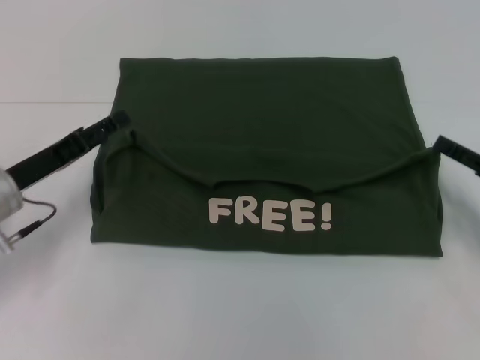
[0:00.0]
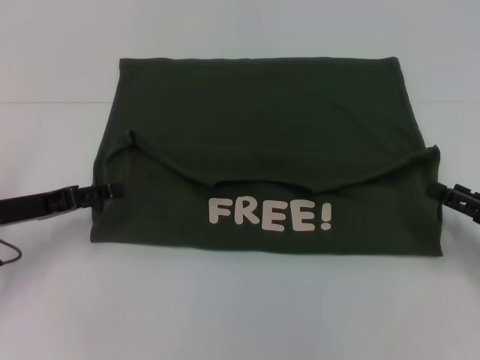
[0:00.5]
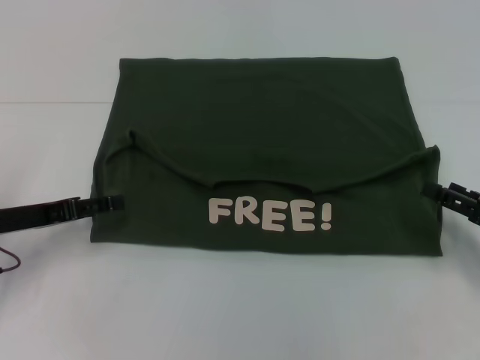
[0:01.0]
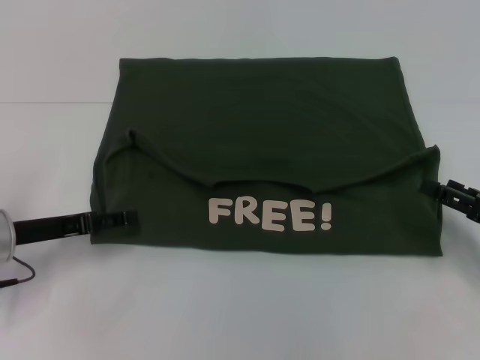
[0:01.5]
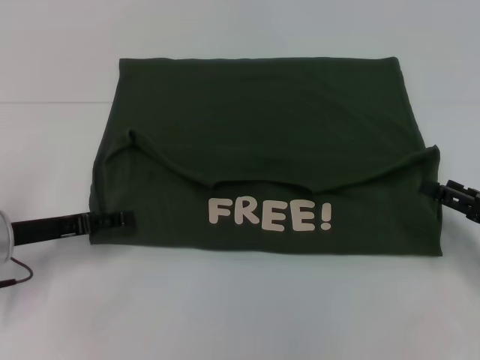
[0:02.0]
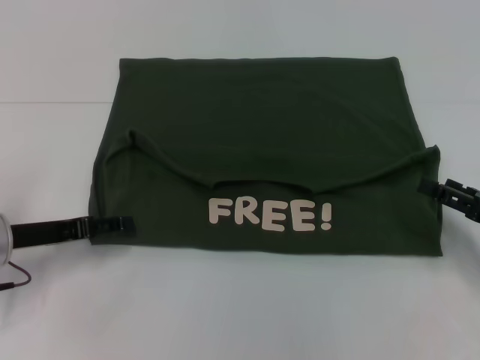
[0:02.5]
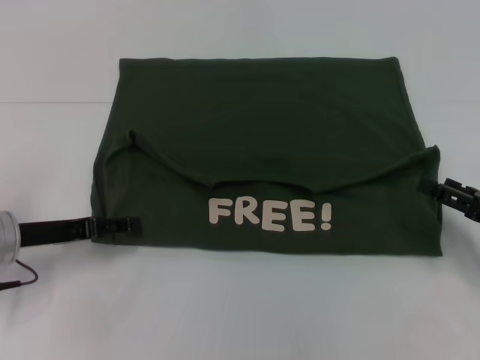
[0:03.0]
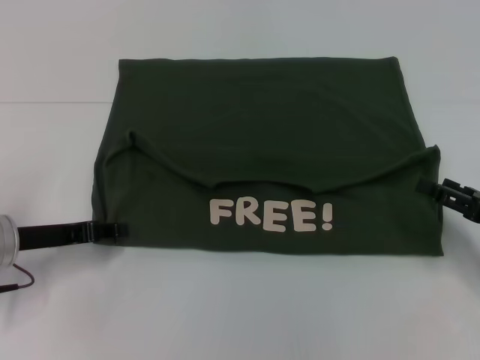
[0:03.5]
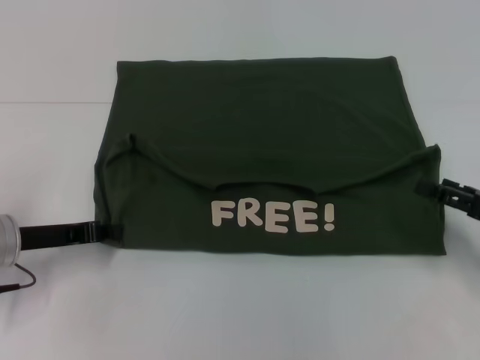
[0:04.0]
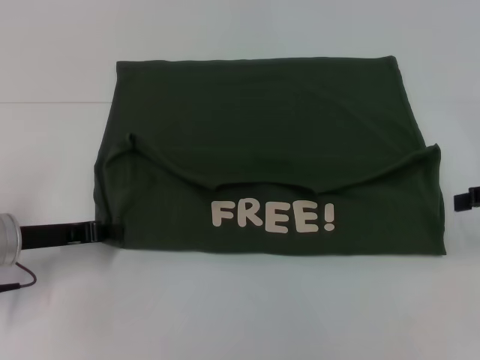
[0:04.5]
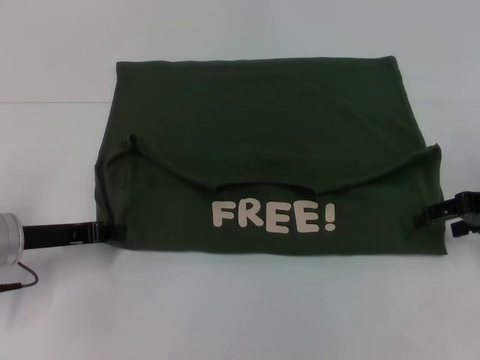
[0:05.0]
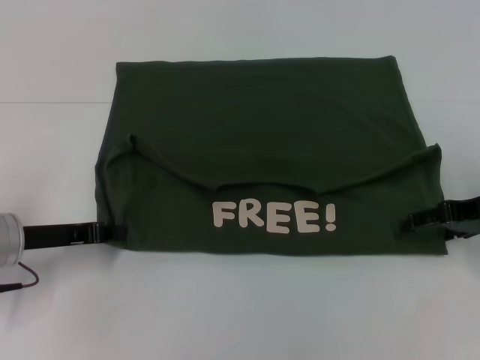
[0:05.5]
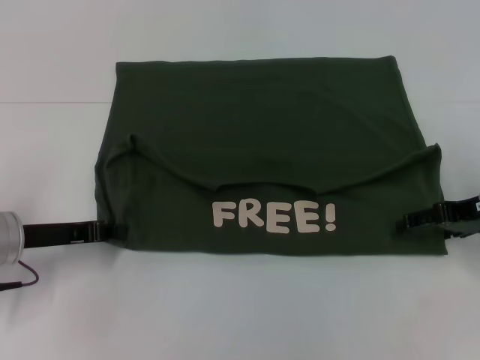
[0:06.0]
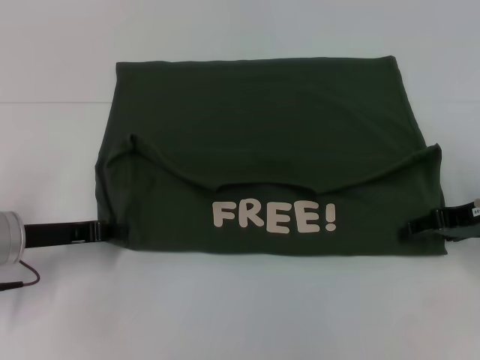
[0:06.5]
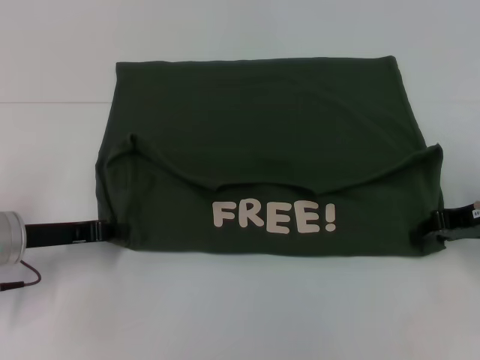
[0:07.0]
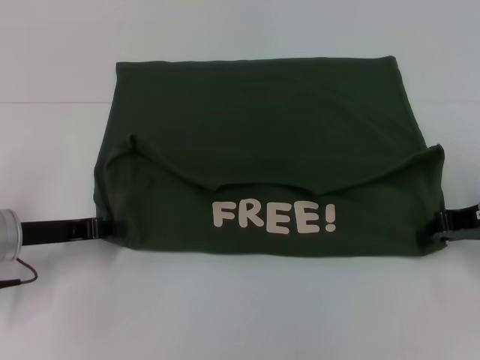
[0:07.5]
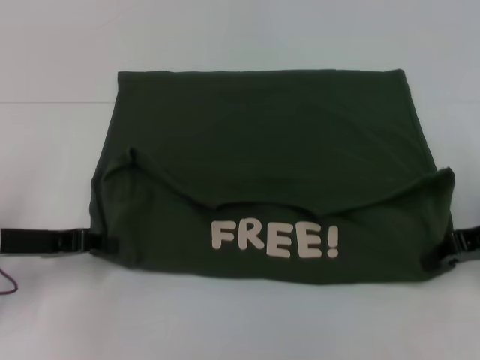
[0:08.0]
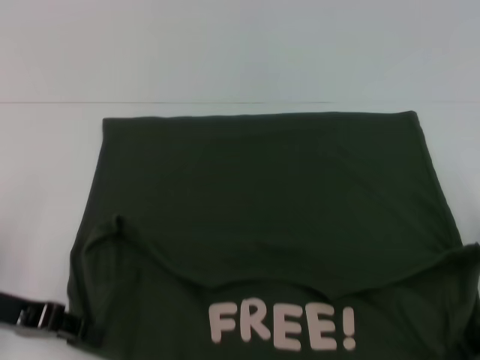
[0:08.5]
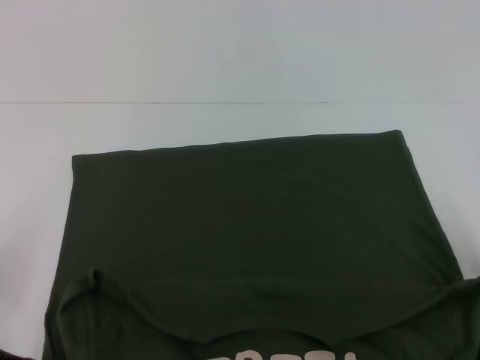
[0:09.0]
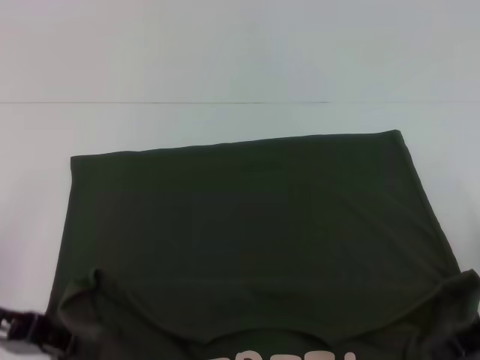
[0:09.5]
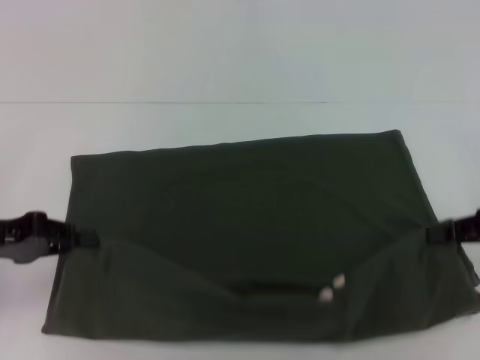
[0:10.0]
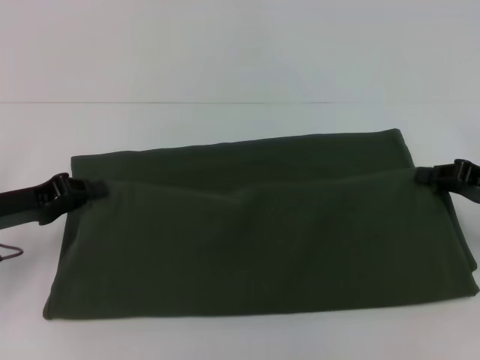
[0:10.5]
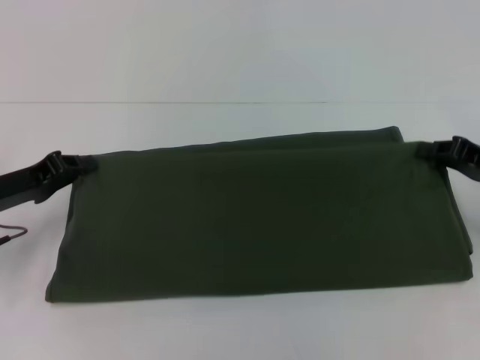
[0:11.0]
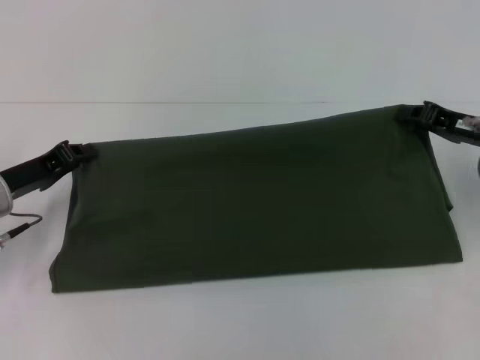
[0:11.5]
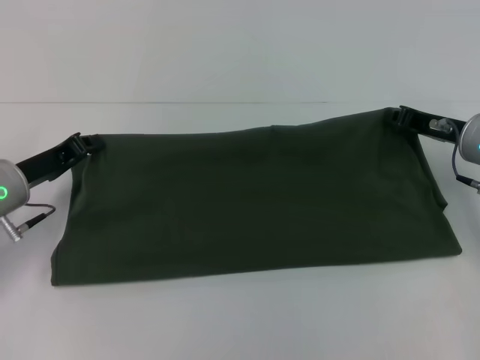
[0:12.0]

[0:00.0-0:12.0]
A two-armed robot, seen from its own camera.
Step, 0:00.5 to 0:09.0: Pull the clothes with your left hand.
Step, 0:00.5 to 0:09.0: Pull the clothes with your right hand.
0:02.0 to 0:04.0: The left gripper closes up.
0:04.0 to 0:06.0: The right gripper heads forward, covering approximately 10 cm.
0:06.0 to 0:08.0: The right gripper closes.
0:08.0 to 0:10.0: The left gripper moves roughly 5 cm.
0:10.0 to 0:12.0: The left gripper moves forward, to the right and downward, approximately 10 cm. Meanwhile the right gripper moves forward and to the left, roughly 15 cm.

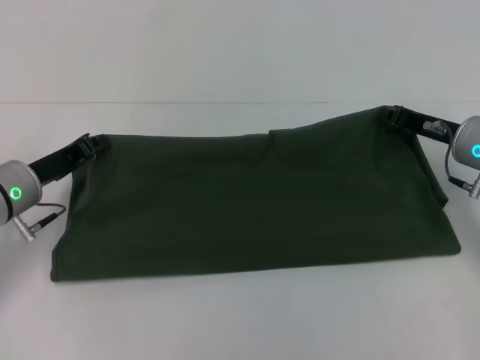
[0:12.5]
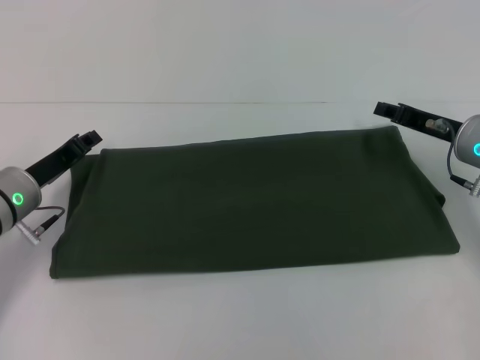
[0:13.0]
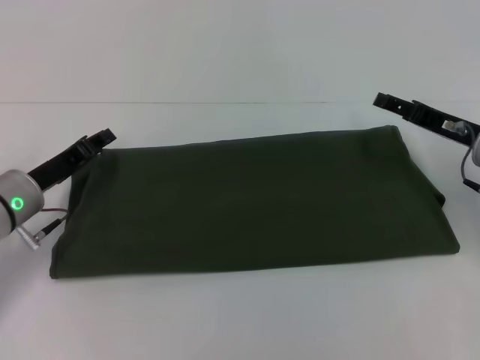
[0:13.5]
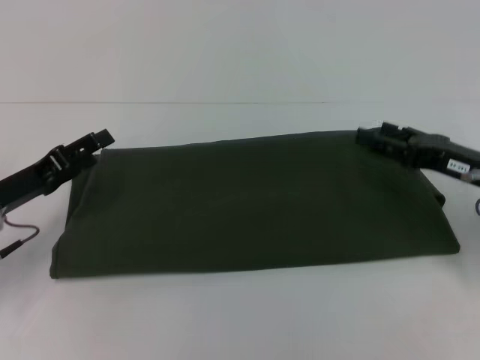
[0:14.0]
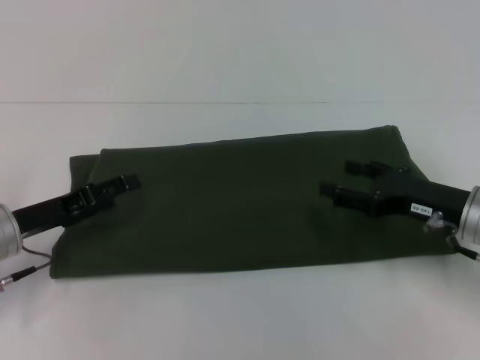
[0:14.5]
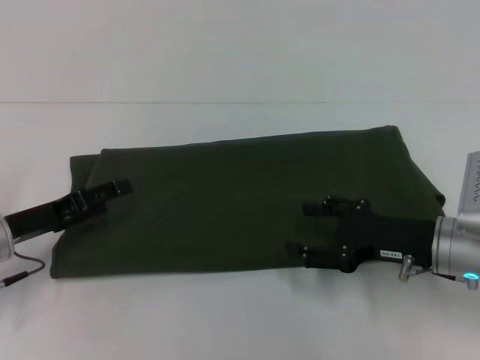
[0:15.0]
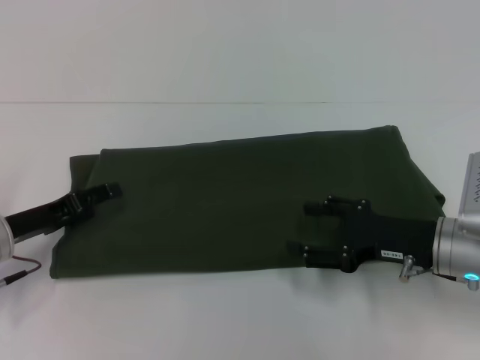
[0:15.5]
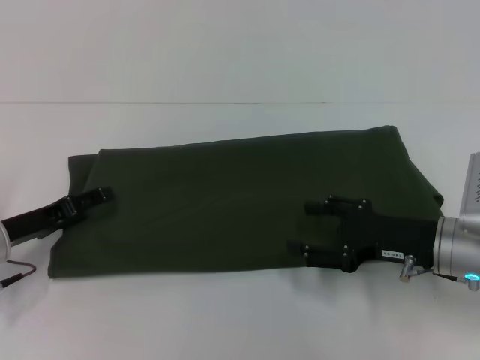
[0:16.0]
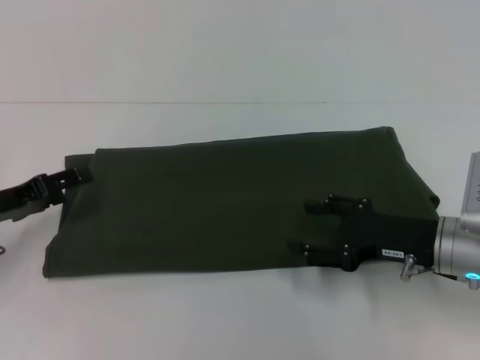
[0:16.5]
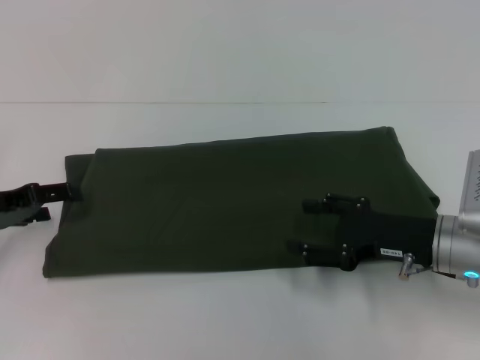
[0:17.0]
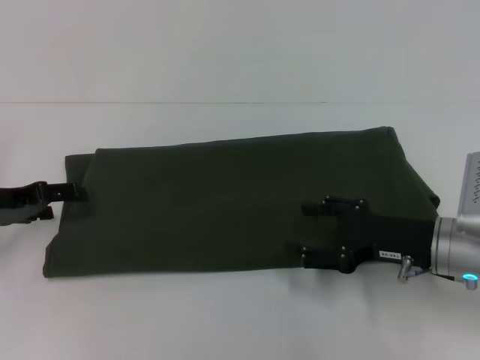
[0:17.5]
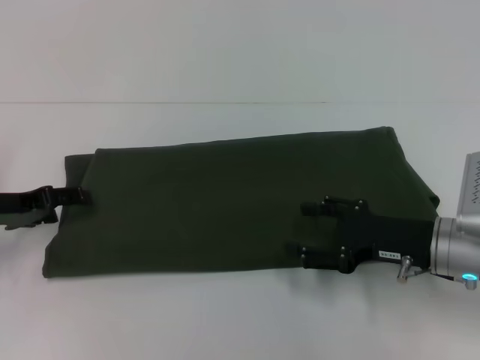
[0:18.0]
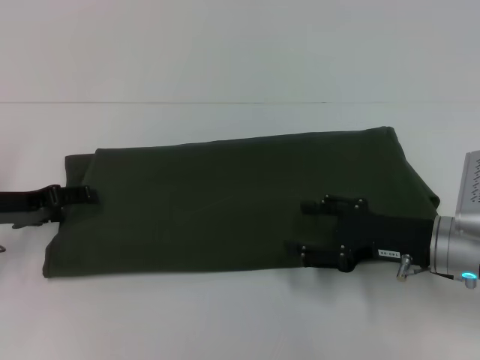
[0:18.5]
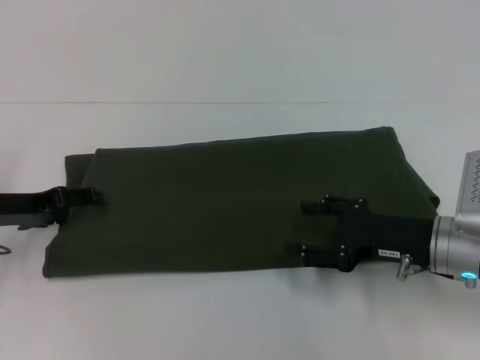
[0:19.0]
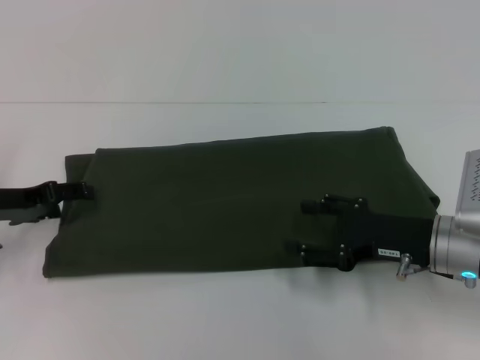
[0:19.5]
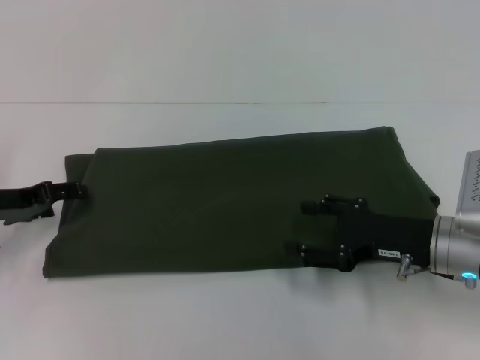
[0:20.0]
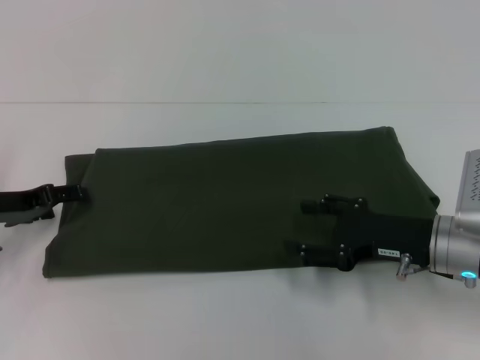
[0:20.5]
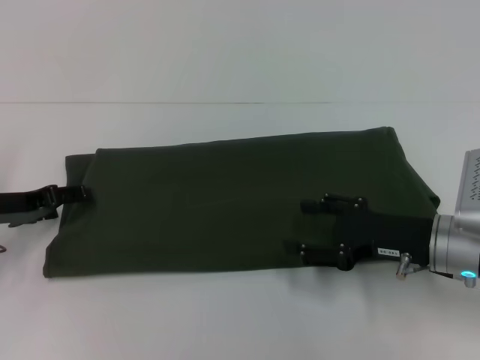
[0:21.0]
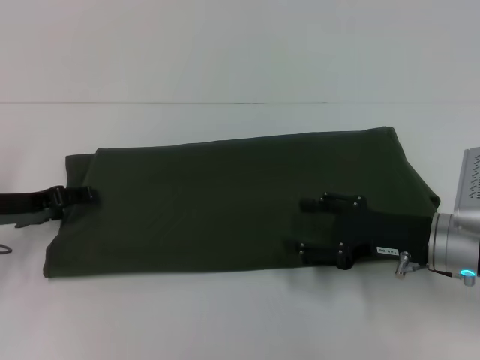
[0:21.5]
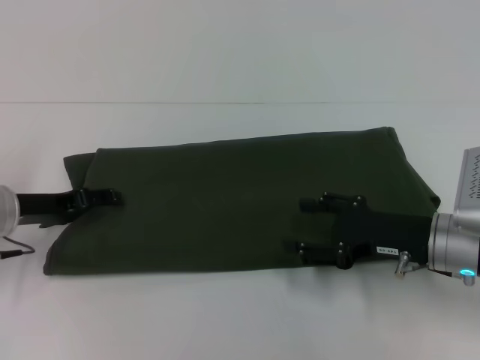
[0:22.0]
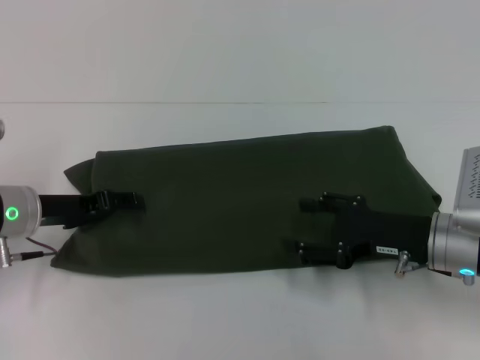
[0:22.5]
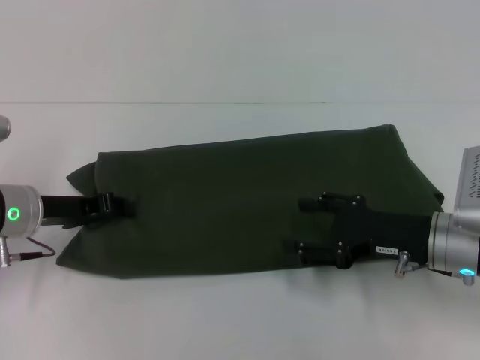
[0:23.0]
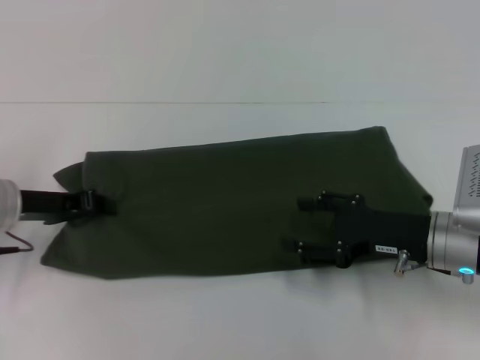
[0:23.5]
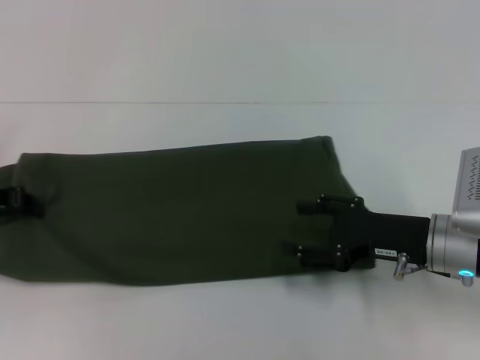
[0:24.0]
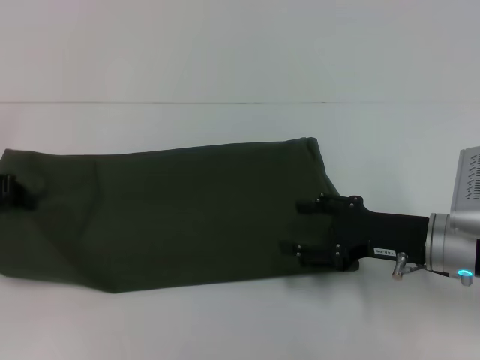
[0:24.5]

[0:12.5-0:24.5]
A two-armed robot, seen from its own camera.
0:12.5 to 0:14.5: The right gripper shifts about 10 cm backward, and opens up. The left gripper moves some 5 cm, and opens.
0:16.5 to 0:18.5: The grippers move only a little.
0:18.5 to 0:20.5: Neither gripper changes place.
0:20.5 to 0:22.5: The left gripper goes roughly 5 cm to the right.
0:22.5 to 0:24.5: The left gripper shifts roughly 10 cm to the left and upward, and closes.

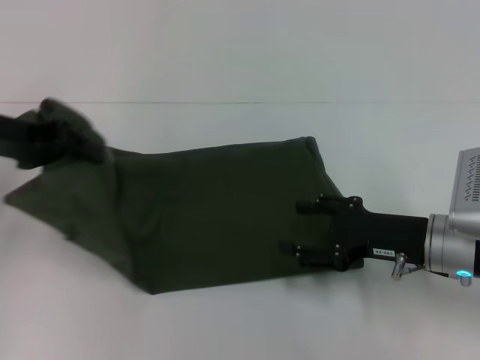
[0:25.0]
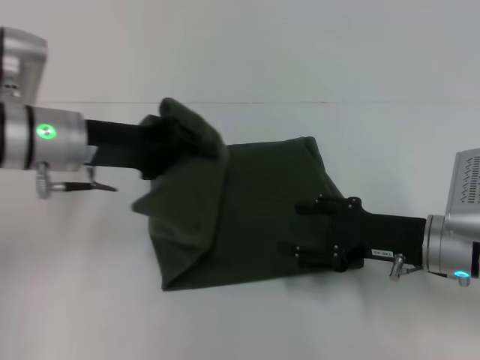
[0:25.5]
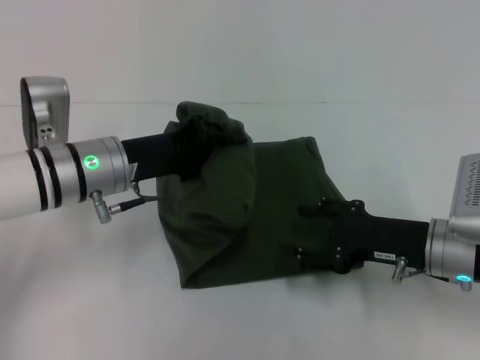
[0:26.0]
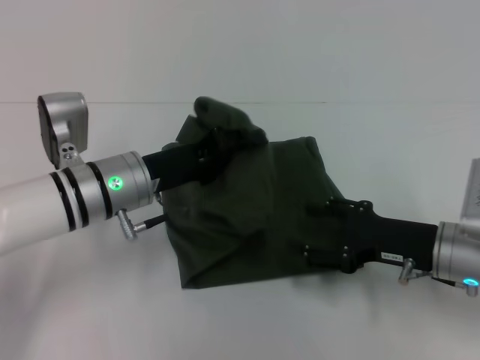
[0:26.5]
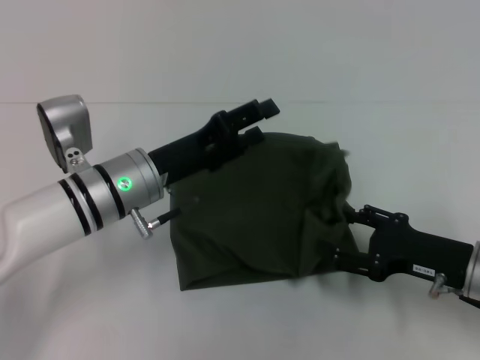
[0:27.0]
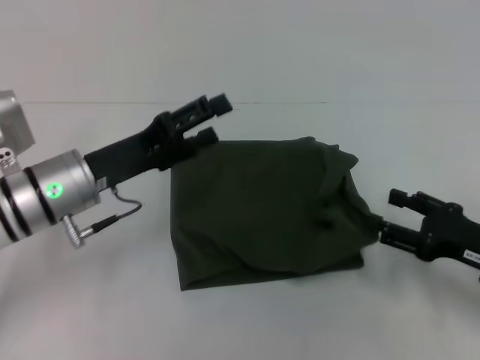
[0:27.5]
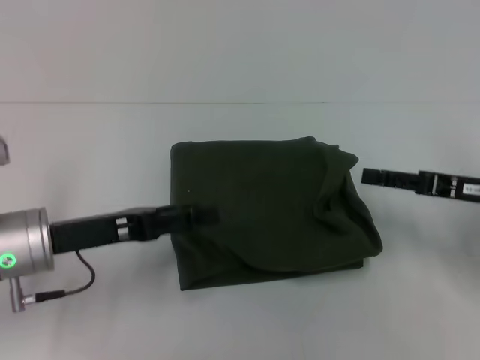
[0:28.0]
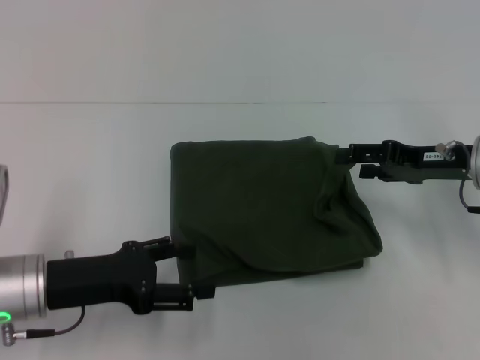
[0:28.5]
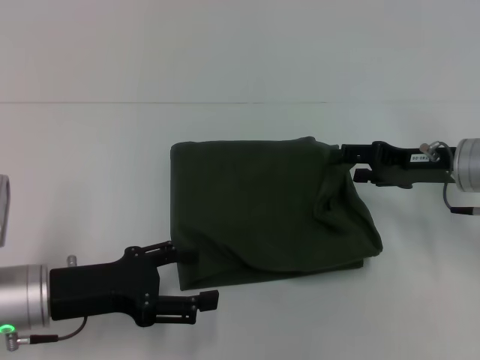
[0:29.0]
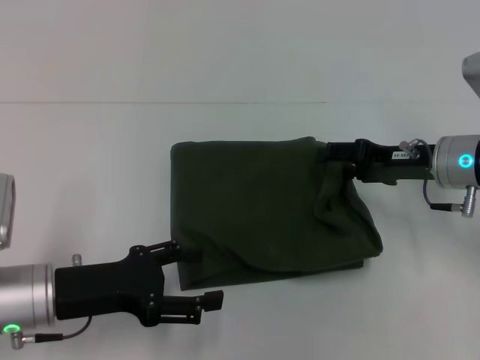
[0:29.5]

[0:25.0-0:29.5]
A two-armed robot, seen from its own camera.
0:25.0 to 0:27.0: The left gripper moves to the right and downward, roughly 20 cm, and opens up. The right gripper shifts by about 5 cm.
0:27.0 to 0:29.5: The right gripper is displaced forward and upward by about 10 cm. Meanwhile the left gripper is displaced backward and to the left by approximately 15 cm, and opens its fingers.
